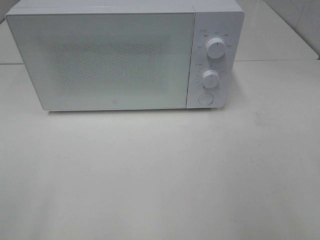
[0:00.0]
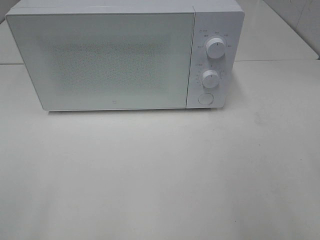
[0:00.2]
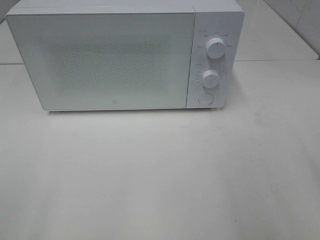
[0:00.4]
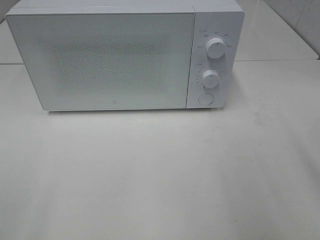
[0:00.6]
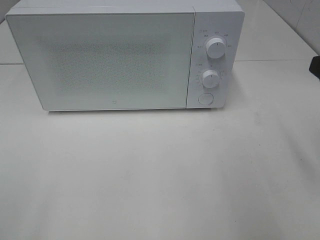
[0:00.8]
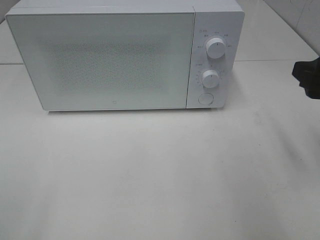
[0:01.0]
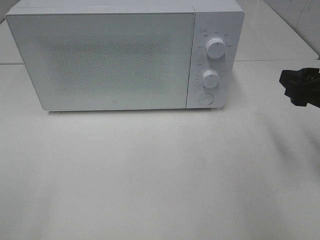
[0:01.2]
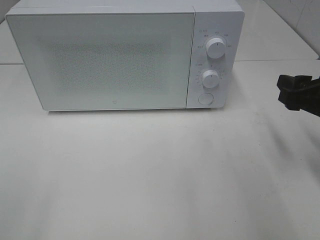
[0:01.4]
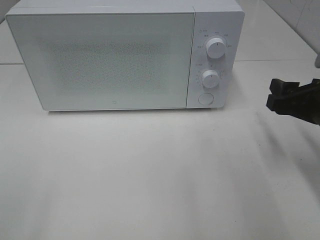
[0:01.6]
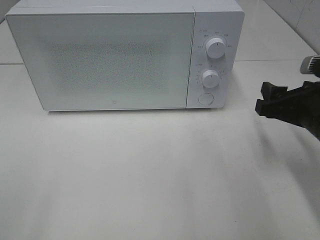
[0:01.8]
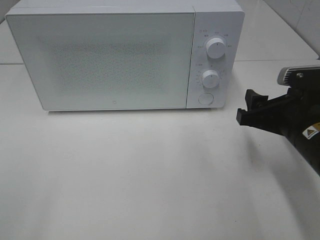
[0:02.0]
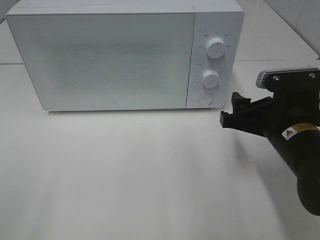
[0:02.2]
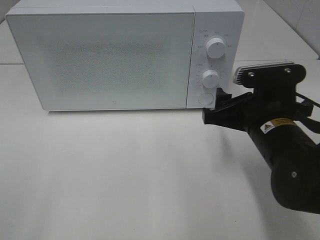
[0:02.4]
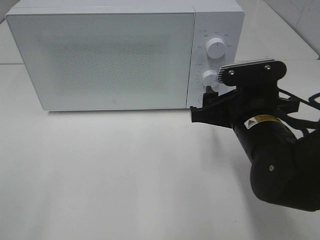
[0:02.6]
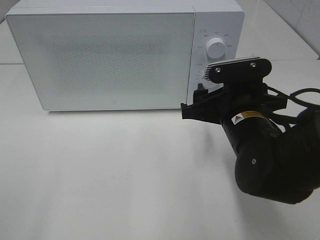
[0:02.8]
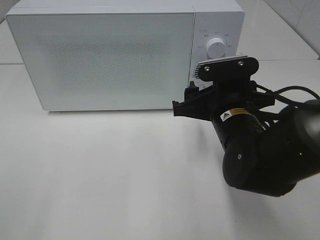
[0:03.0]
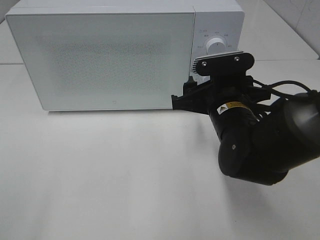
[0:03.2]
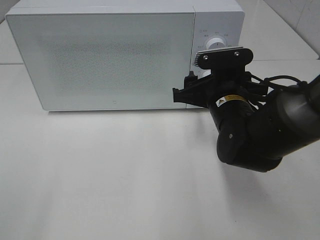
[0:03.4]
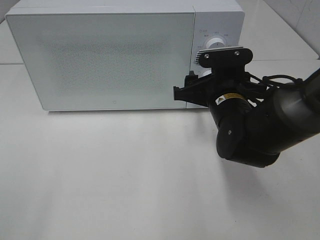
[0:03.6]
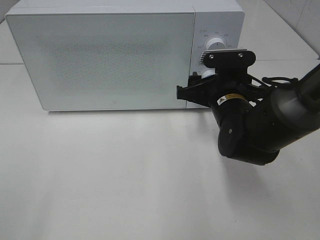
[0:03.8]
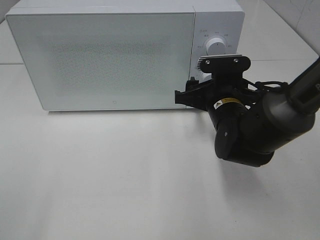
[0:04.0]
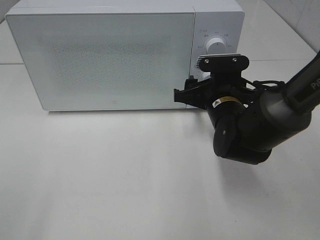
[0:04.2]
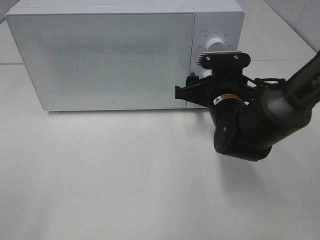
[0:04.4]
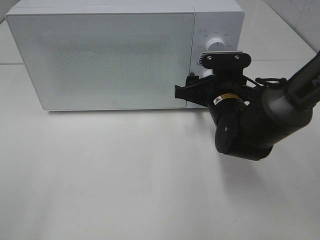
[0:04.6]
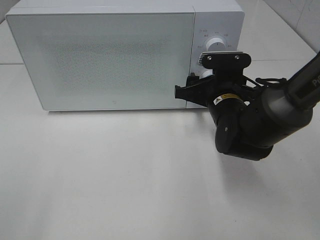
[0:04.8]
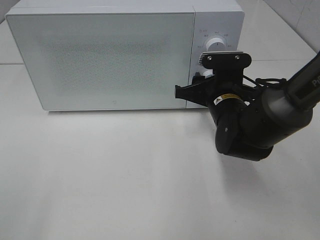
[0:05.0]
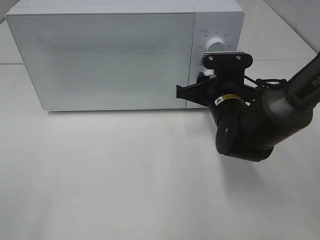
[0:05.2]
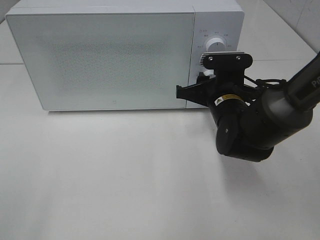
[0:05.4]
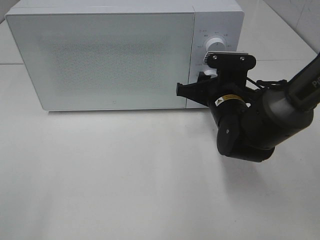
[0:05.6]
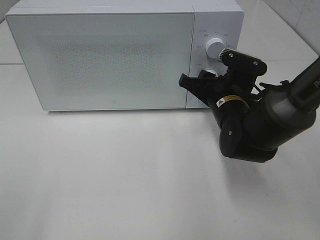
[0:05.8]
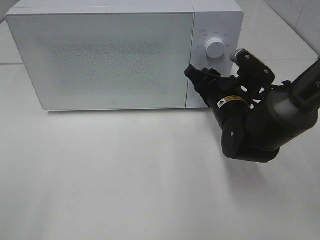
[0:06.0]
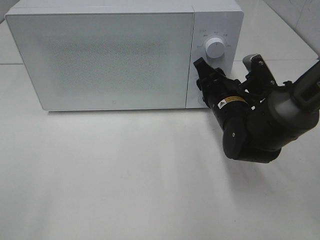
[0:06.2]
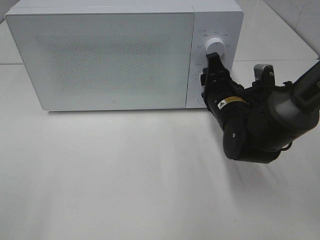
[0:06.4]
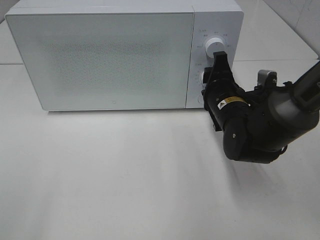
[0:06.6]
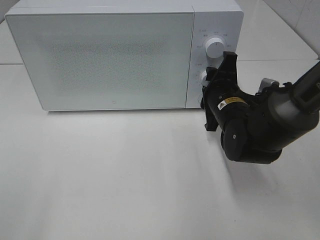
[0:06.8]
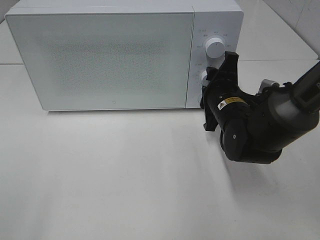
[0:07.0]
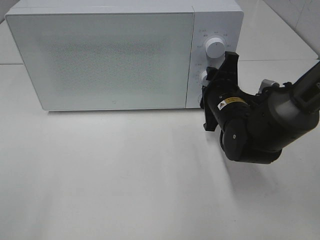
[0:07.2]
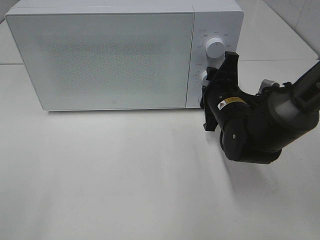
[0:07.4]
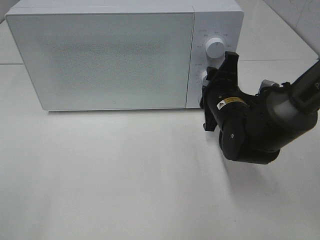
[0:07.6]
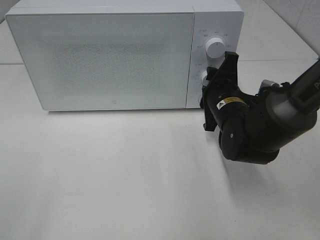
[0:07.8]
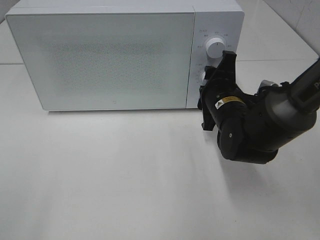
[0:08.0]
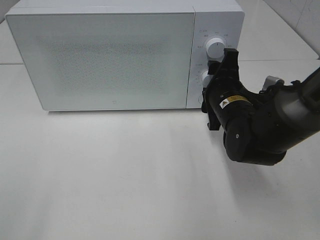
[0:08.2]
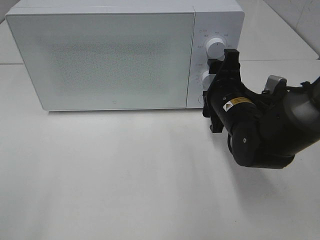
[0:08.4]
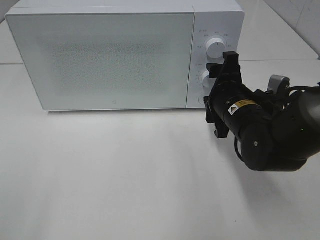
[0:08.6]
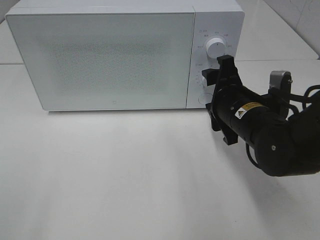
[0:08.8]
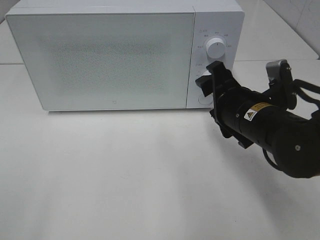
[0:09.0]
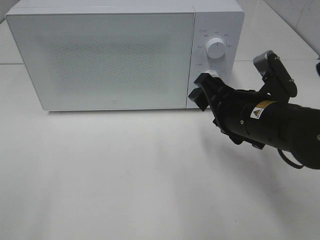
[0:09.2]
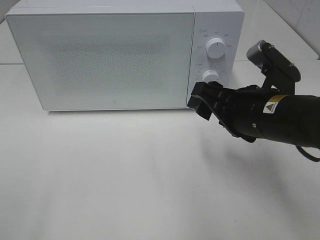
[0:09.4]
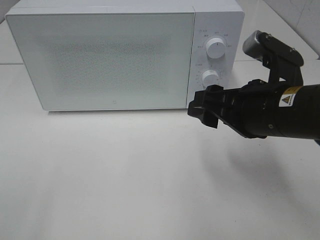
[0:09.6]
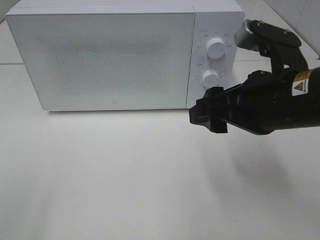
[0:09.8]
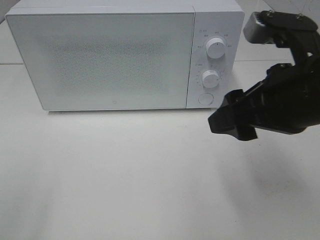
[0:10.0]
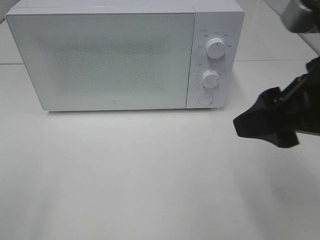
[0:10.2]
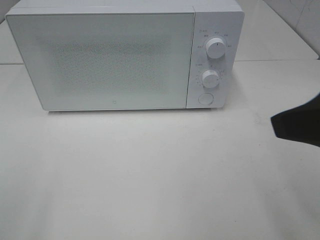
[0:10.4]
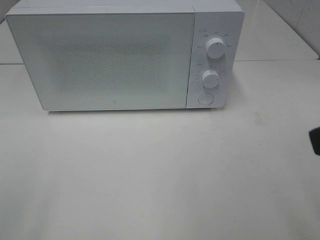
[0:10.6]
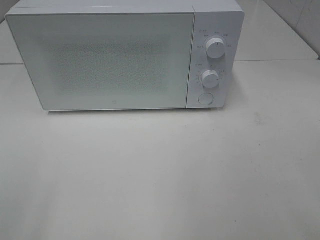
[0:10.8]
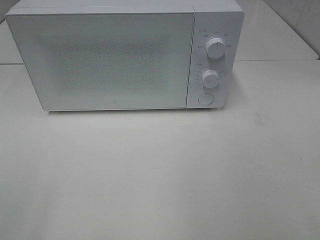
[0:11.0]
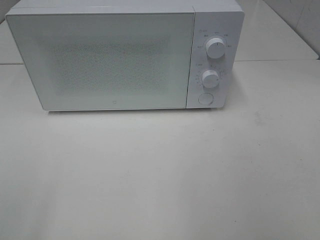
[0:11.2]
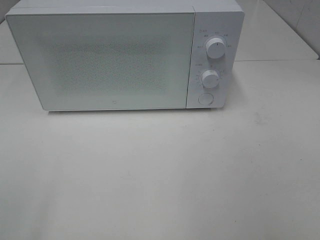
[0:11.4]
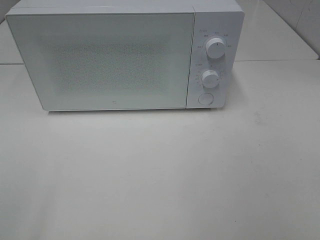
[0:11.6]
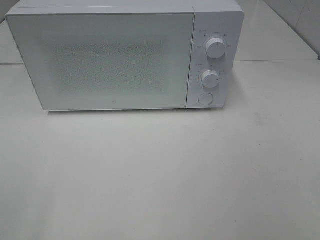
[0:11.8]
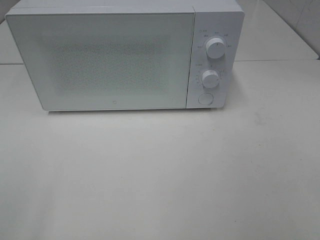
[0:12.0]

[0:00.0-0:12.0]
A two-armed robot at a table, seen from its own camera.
Task of the whole recording: Heat the burger.
Step, 0:00.0 to 0:08.2: Right hand: twist timer button.
0:00.0 to 0:01.6: The right gripper heads forward and downward, covering roughly 20 cm.
0:01.6 to 0:03.0: The right gripper heads to the left, covering about 15 cm.
0:03.0 to 0:04.4: The right gripper goes roughly 5 cm forward.
0:07.6 to 0:09.0: The right gripper heads backward, covering some 5 cm.
0:09.0 to 0:10.4: The right gripper heads upward and backward, covering approximately 20 cm.
0:10.4 to 0:12.0: The right gripper goes about 15 cm backward and to the right.

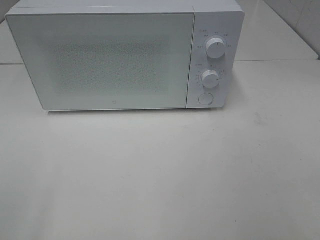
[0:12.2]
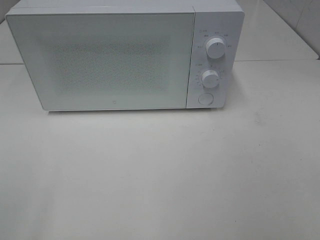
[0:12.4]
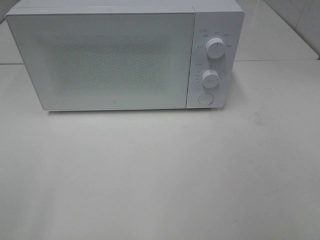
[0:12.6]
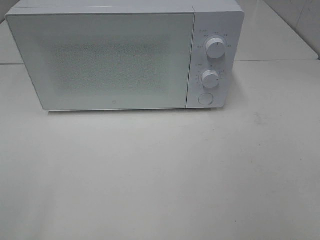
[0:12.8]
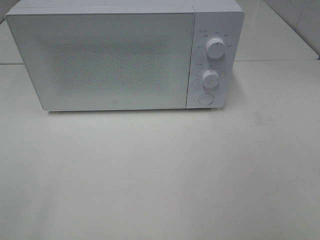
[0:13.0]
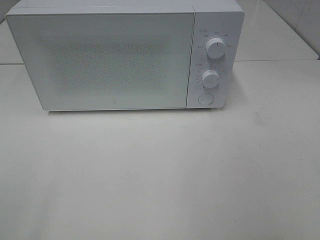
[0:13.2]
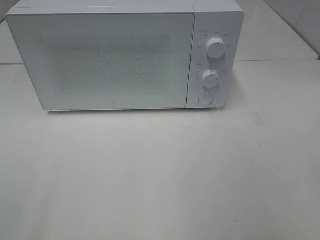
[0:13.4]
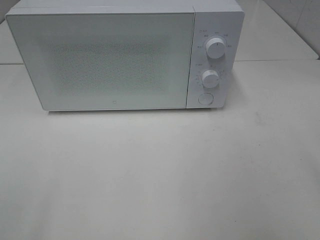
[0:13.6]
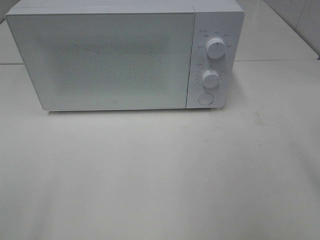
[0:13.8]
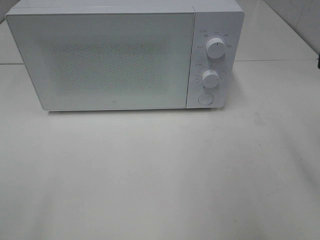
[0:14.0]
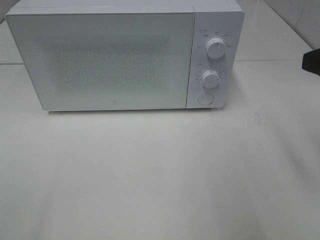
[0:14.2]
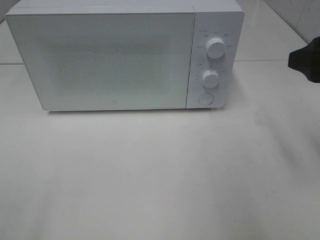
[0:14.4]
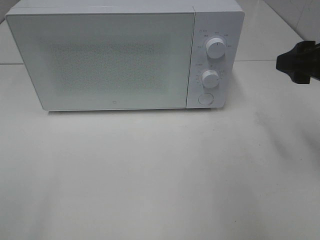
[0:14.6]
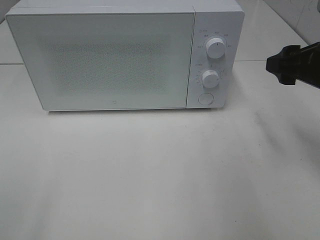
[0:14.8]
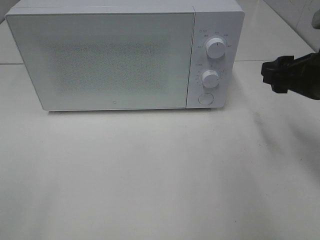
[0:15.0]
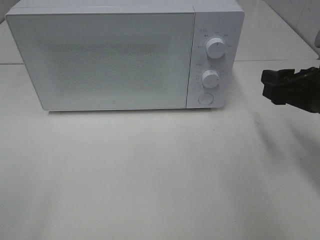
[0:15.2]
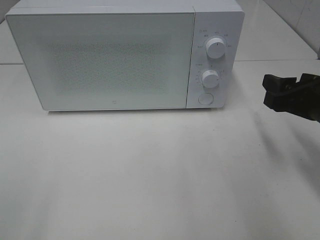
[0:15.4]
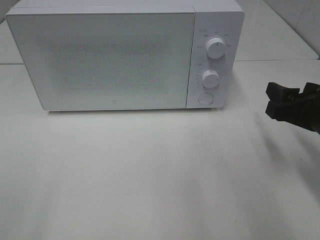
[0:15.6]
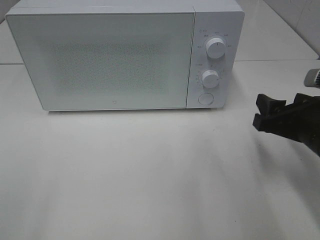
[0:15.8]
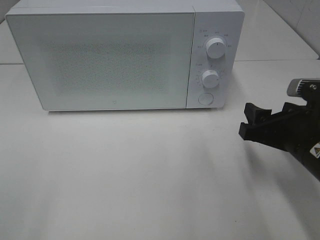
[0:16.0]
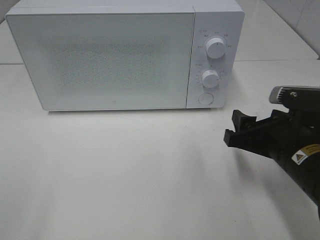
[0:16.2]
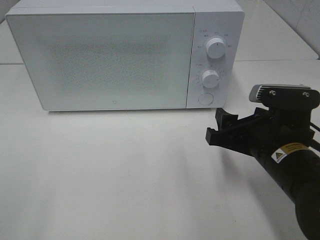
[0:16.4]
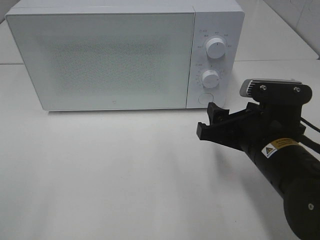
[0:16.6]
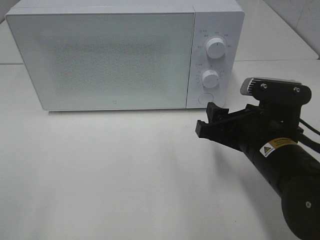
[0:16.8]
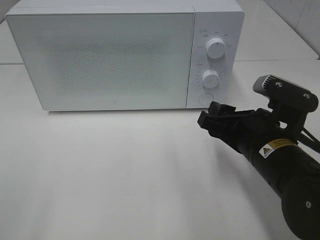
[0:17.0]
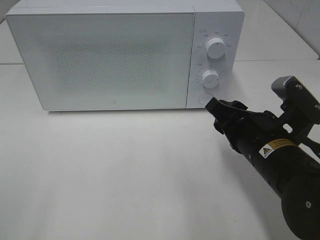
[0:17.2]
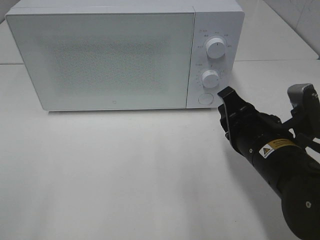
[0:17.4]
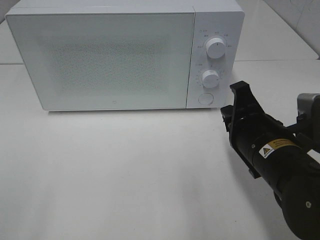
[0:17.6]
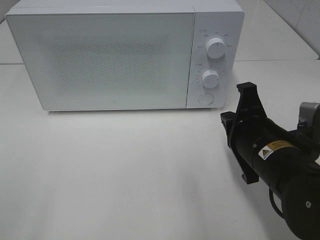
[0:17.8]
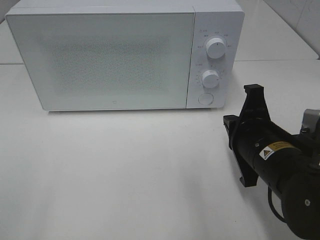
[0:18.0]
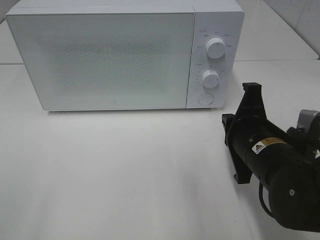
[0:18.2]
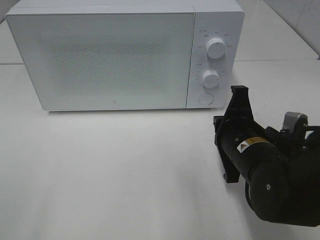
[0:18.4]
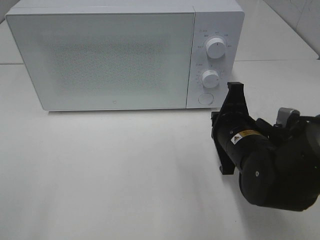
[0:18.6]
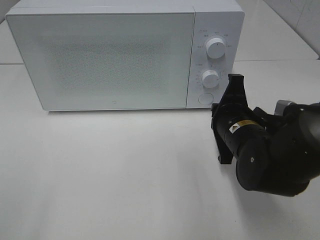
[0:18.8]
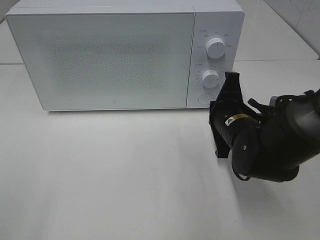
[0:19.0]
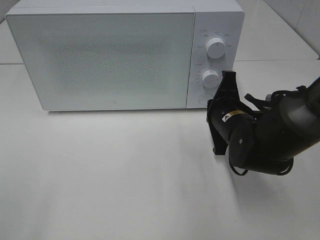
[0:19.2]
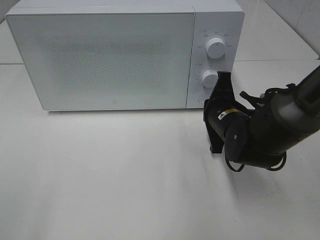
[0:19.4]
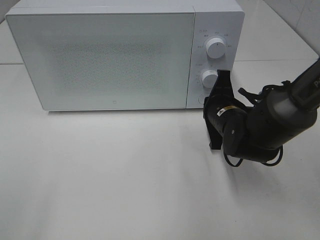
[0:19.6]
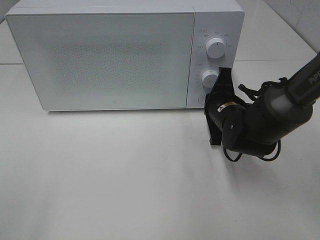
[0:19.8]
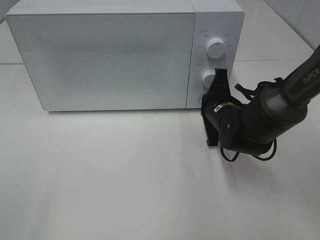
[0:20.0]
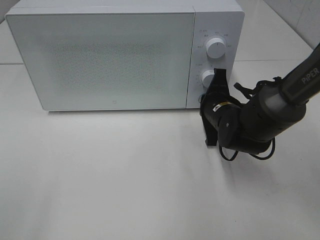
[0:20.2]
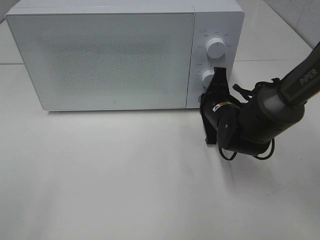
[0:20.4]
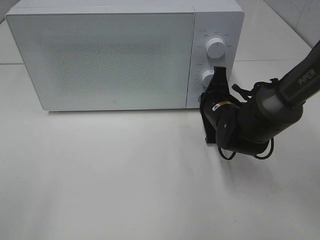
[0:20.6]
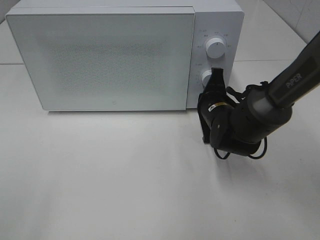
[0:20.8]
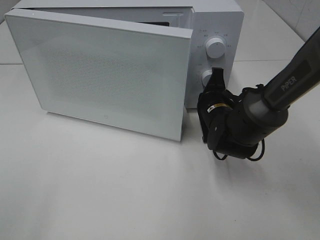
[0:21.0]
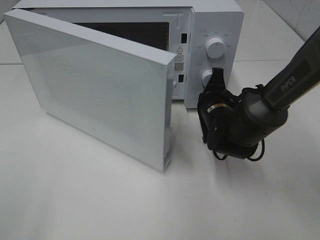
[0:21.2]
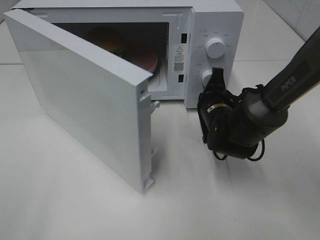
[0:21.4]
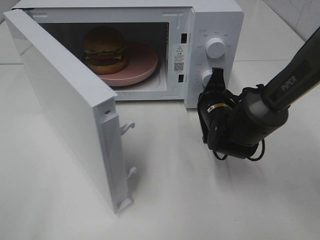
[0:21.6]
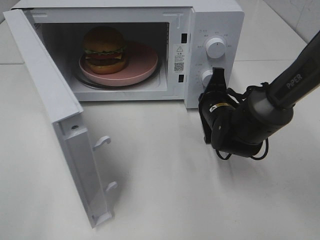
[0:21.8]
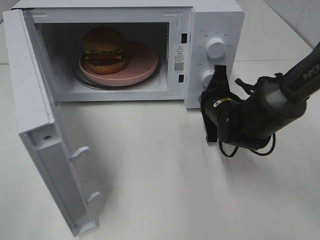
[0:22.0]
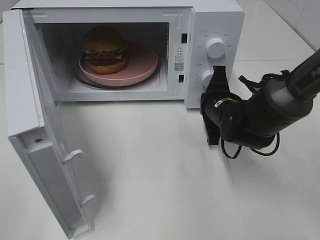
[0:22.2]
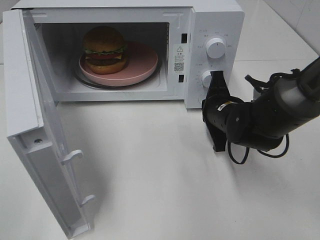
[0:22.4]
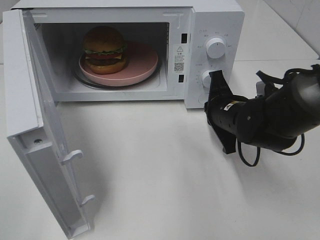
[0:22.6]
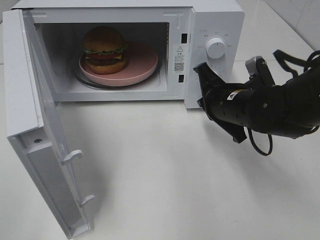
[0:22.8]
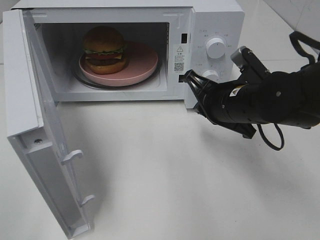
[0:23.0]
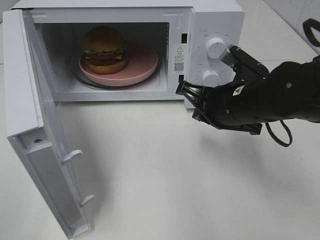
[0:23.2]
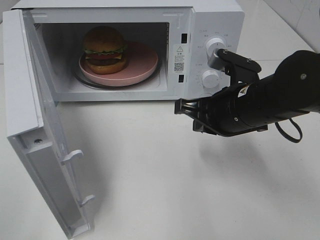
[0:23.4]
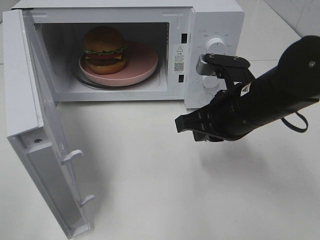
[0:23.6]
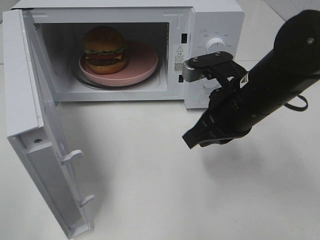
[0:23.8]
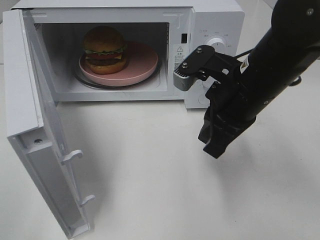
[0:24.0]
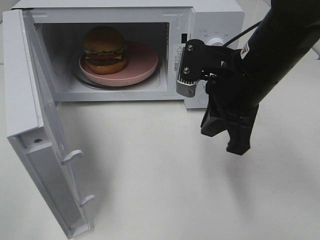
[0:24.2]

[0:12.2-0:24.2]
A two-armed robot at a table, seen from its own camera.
Task of the whole recording: Heat the burger.
Step, 0:12.2 to 0:22.2: Right hand: press the switch.
0:13.8 to 0:15.2: The right gripper travels downward and forward by roughly 15 cm.
0:15.2 to 0:16.6: The right gripper shifts roughly 10 cm to the left.
0:16.6 to 0:18.2: The right gripper closes up.
0:18.2 to 0:19.8: The right gripper shifts about 15 cm forward.
0:21.2 to 0:22.6: The right gripper ends up roughly 5 cm from where it was.
0:22.6 to 0:24.2: The right gripper heads upward, covering about 15 cm.
